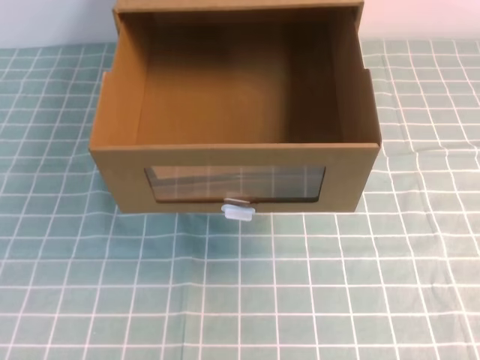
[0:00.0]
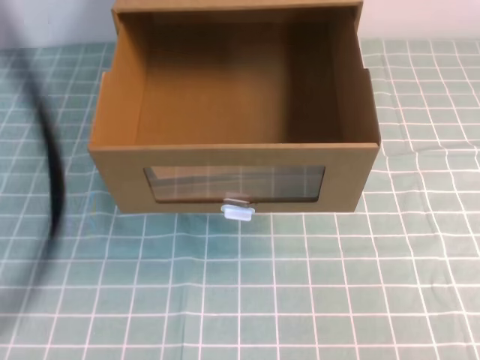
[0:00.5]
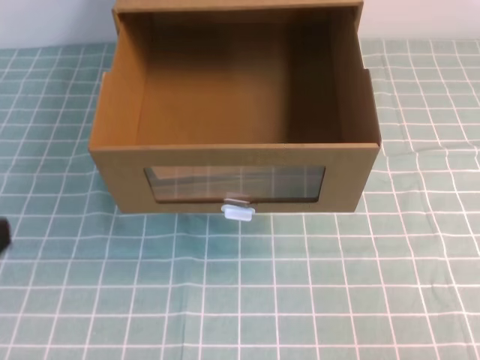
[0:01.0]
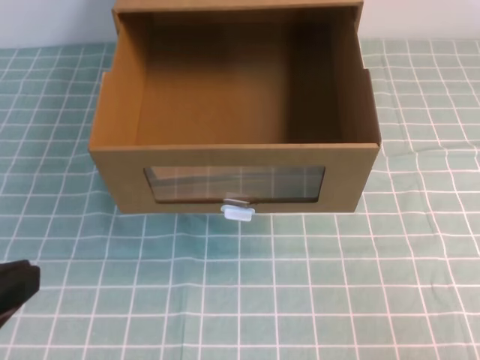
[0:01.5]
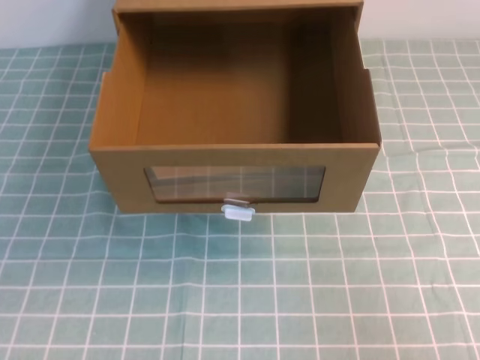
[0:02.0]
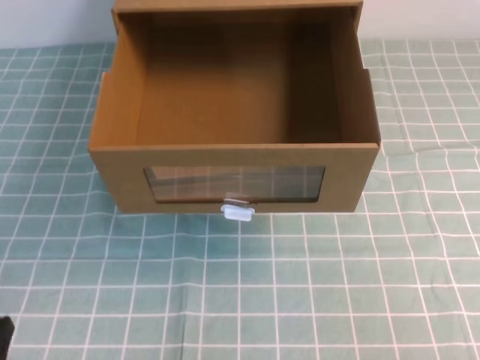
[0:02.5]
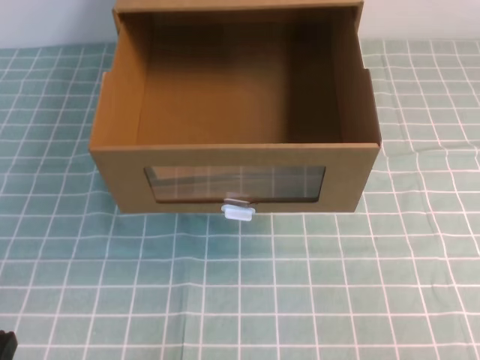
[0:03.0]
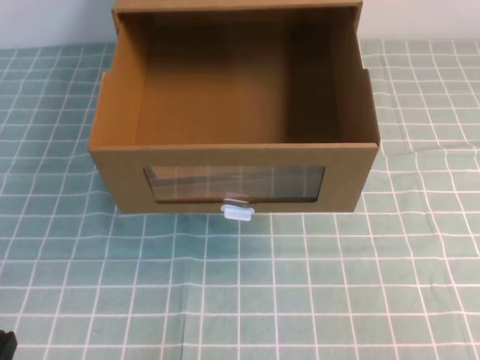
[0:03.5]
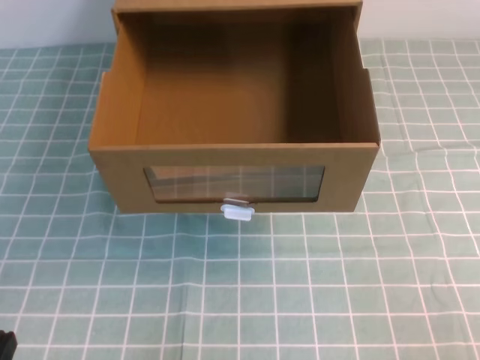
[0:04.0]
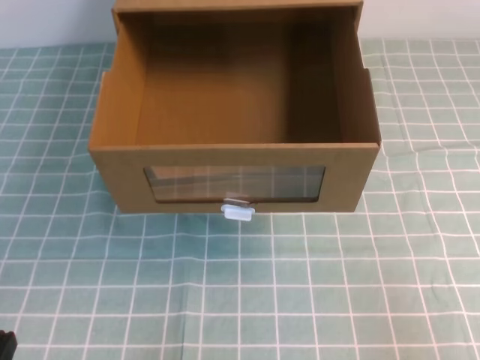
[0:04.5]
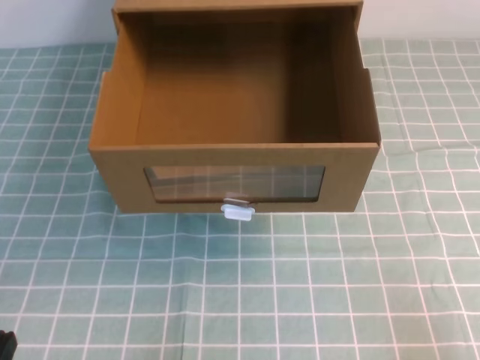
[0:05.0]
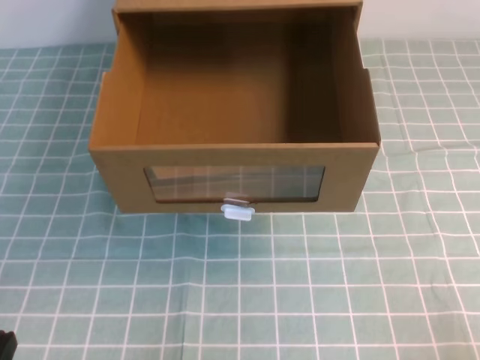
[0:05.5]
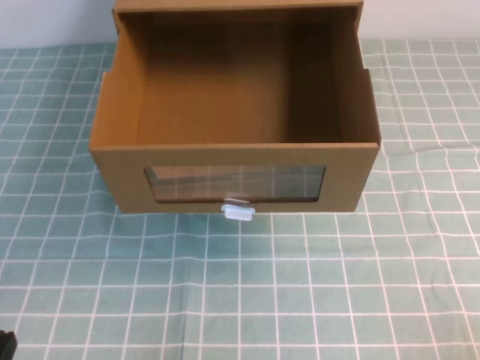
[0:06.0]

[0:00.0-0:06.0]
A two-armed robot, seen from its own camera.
Task of the whole recording: open the shoebox on the cyan tablecloth.
Step, 0:00.0 to 0:06.0: Open the shoe box.
0:00.0 to 0:02.0: The right gripper goes roughly 20 cm downward and to the right; the left gripper is displaced downward and backward by some 35 cm.

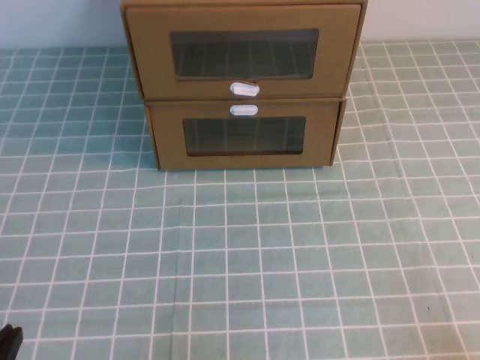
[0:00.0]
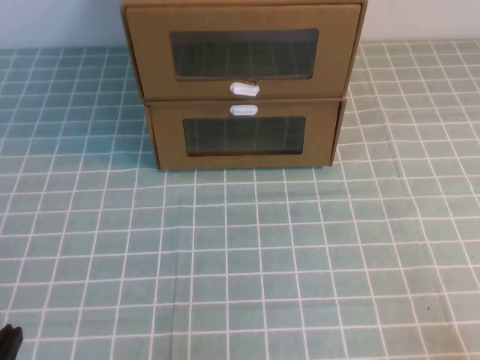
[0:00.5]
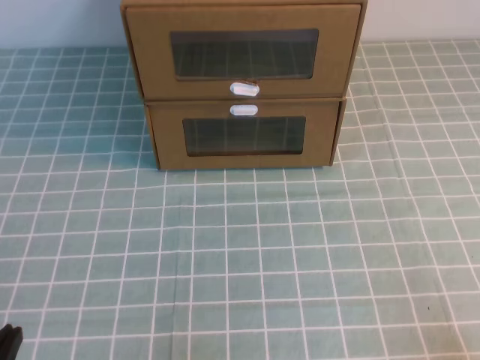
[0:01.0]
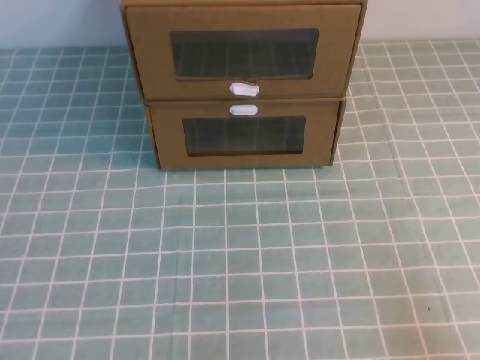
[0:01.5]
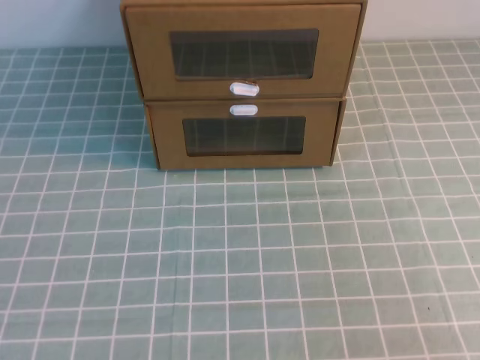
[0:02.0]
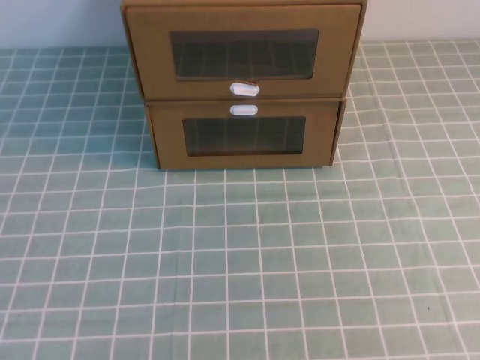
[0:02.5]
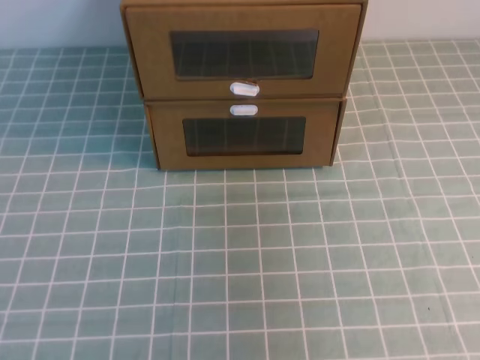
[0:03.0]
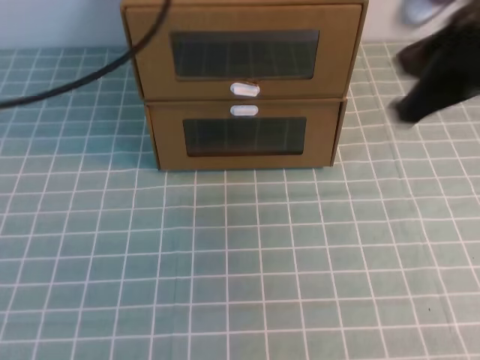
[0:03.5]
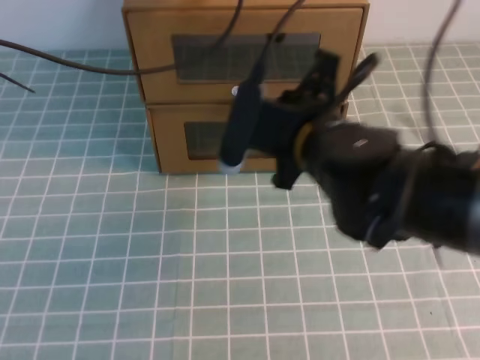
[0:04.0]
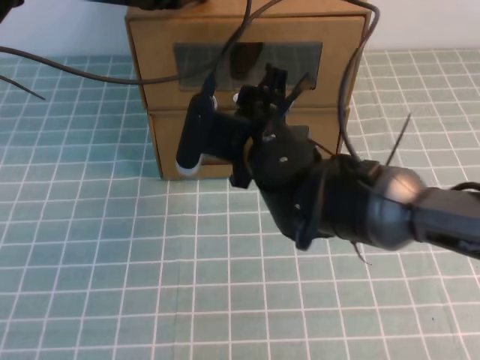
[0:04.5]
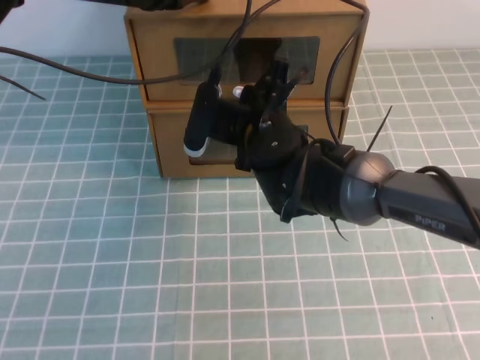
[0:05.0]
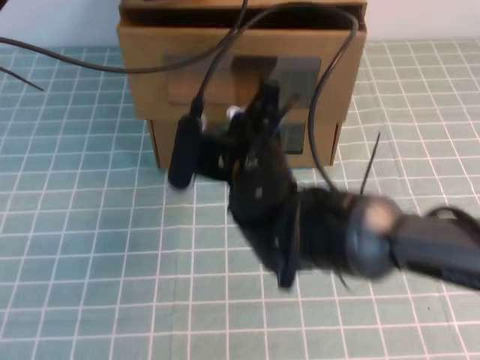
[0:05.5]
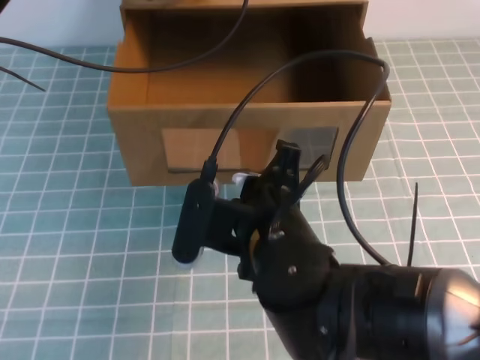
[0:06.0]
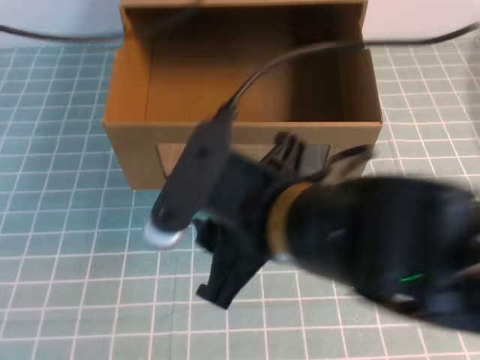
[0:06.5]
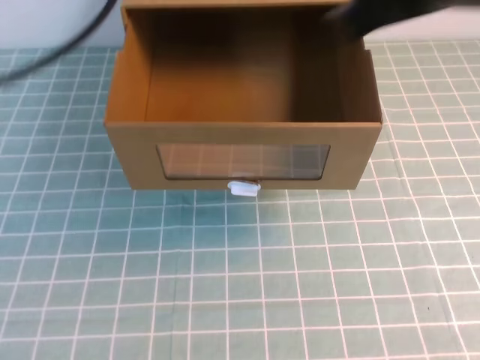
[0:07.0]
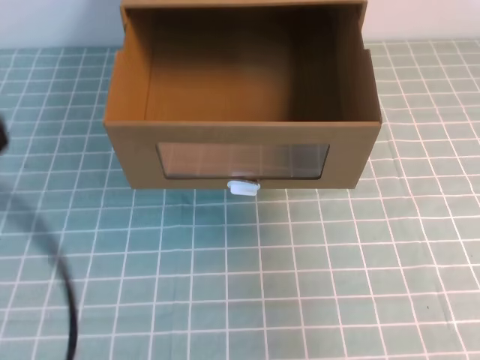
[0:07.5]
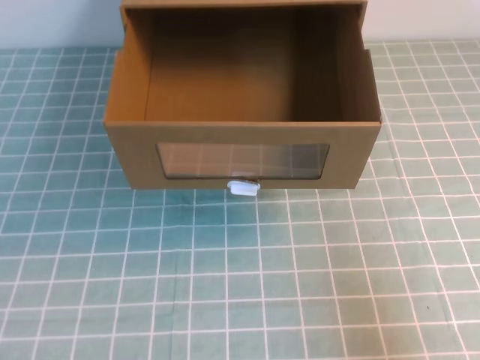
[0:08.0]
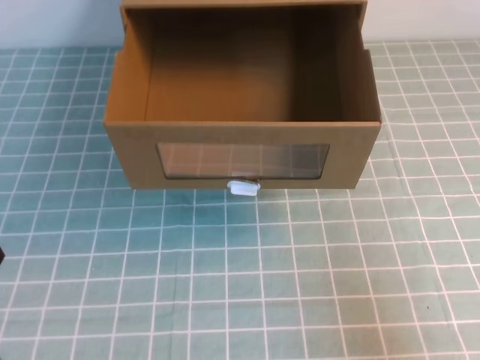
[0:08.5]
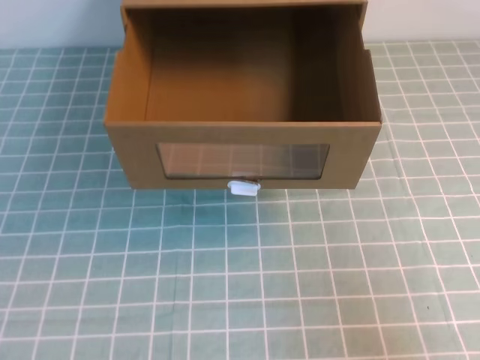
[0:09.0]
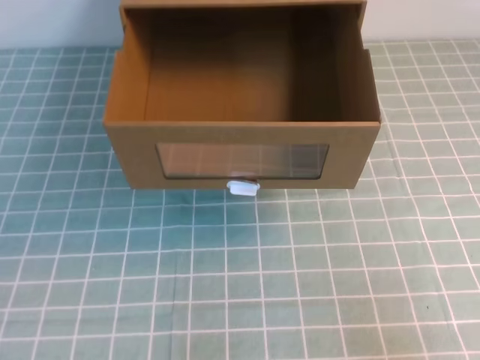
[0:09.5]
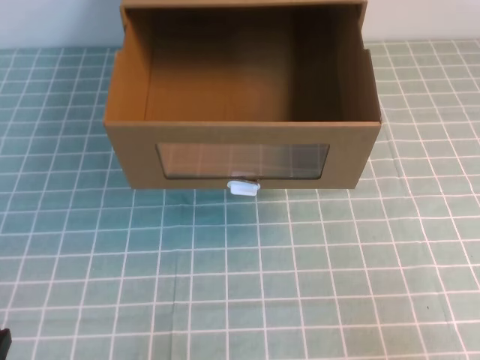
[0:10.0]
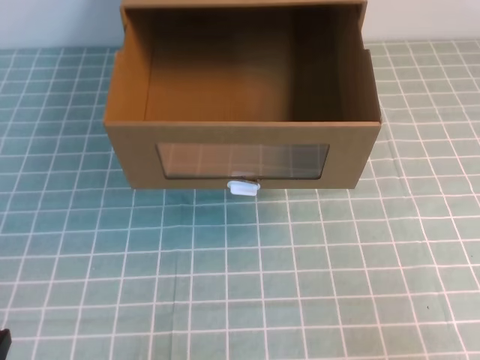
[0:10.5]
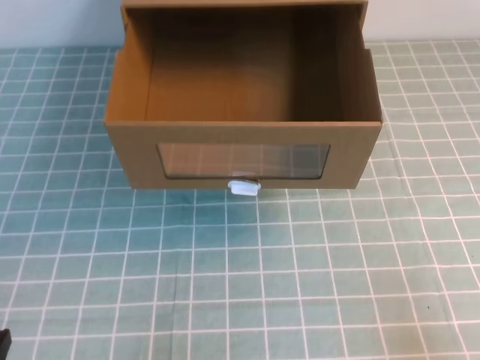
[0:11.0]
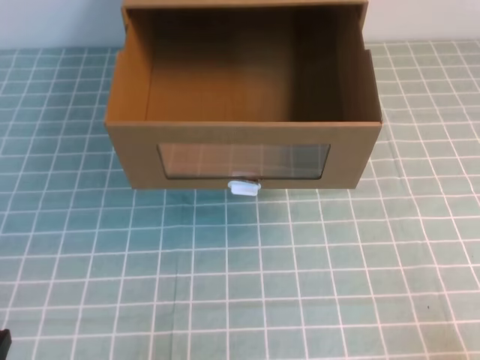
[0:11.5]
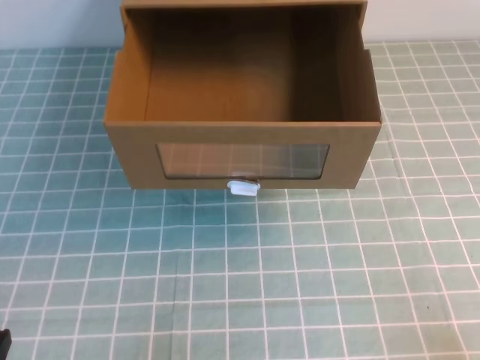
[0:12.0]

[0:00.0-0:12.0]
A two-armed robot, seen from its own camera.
Task of the whole recording: open the shoebox on the cyan tablecloth.
Step, 0:00.0 to 0:12.0: Open the shoe box.
0:02.0 to 0:04.0: The right gripper goes about 35 cm forward and to the left; the left gripper is displaced forward and to the right by roughly 40 cm.
0:04.0 to 0:06.0: The right gripper is displaced backward and to the left by approximately 10 cm, and opens.
0:06.0 to 0:08.0: The right gripper travels to the right by roughly 25 cm, and closes up. Meanwhile the left gripper heads backward, covering approximately 40 cm.

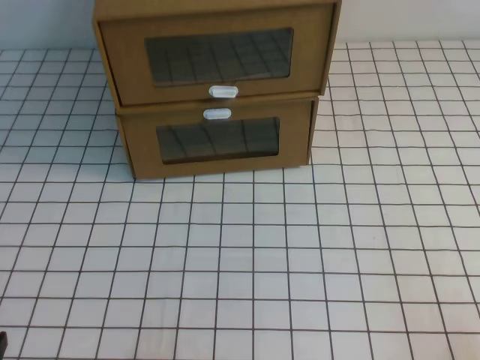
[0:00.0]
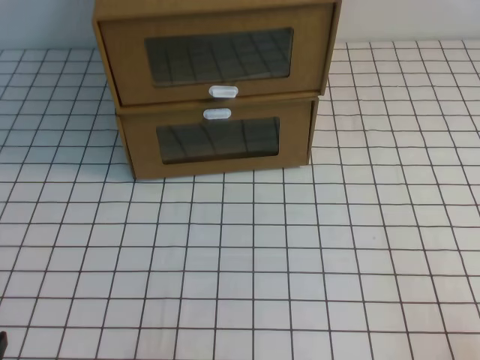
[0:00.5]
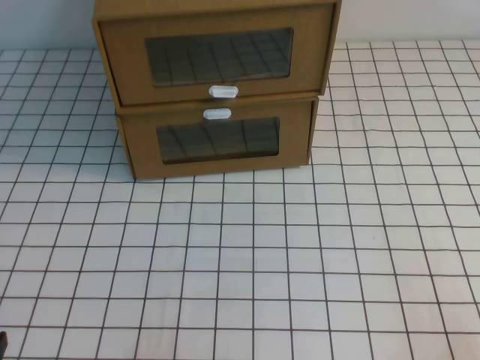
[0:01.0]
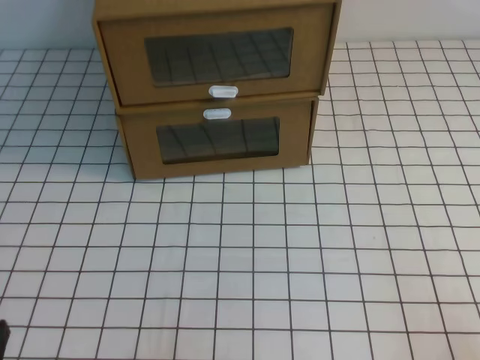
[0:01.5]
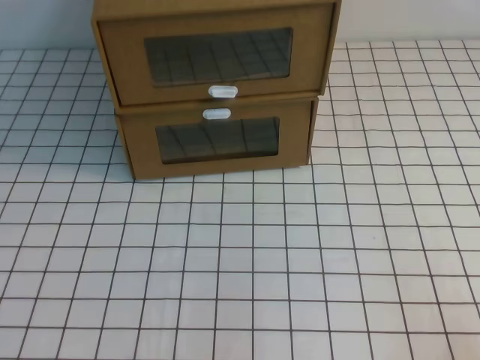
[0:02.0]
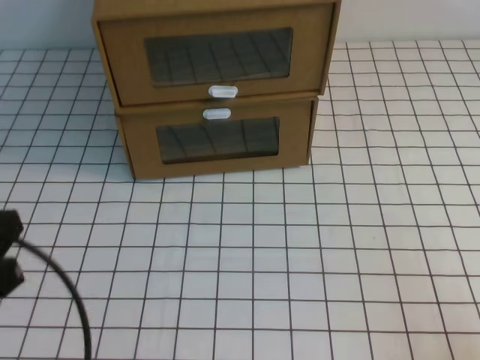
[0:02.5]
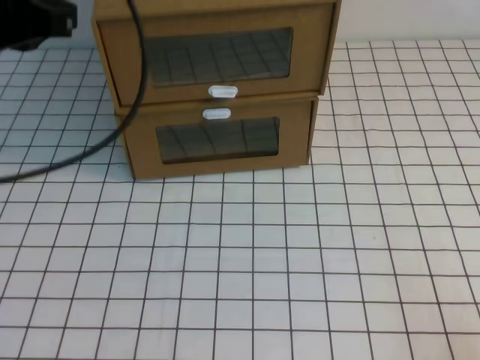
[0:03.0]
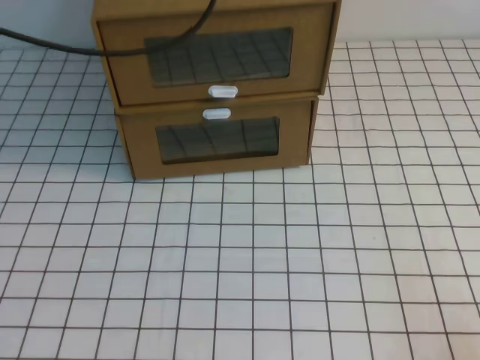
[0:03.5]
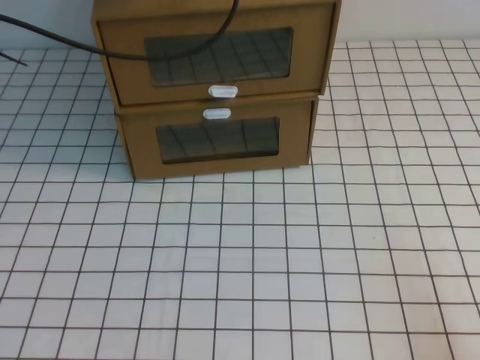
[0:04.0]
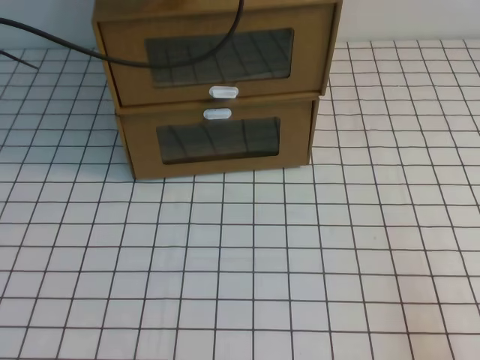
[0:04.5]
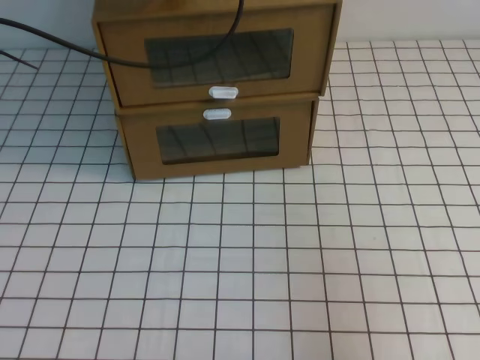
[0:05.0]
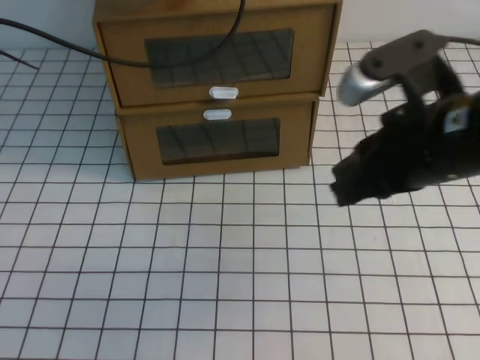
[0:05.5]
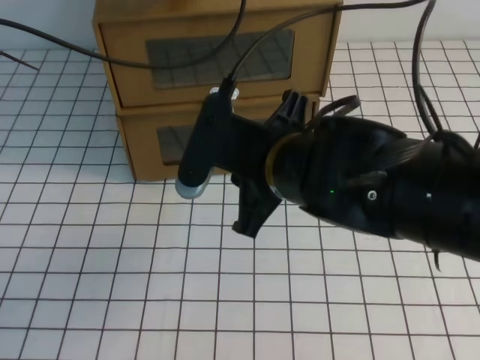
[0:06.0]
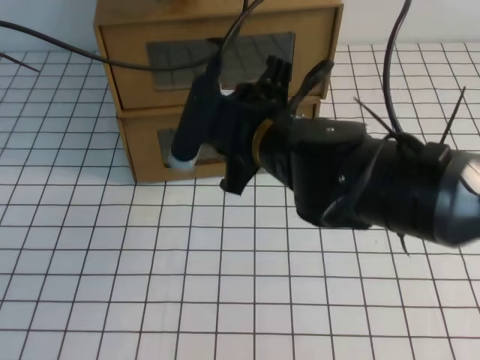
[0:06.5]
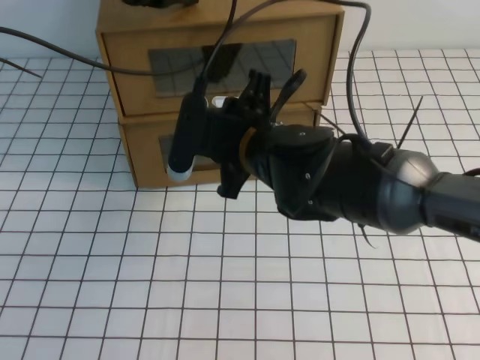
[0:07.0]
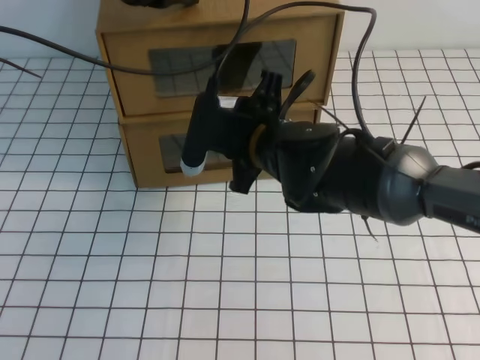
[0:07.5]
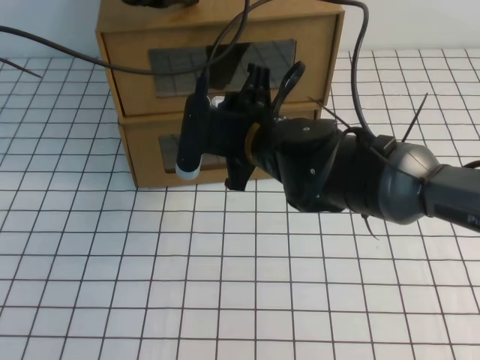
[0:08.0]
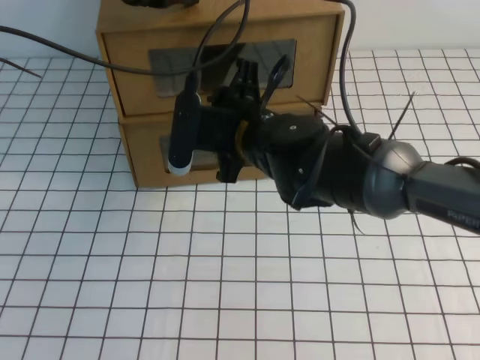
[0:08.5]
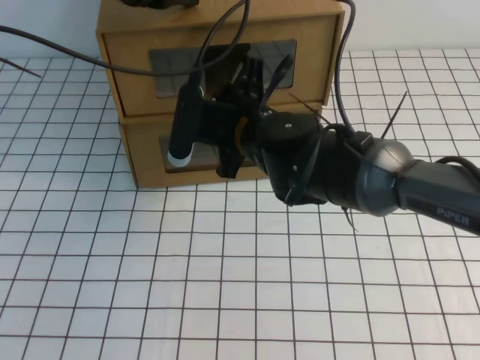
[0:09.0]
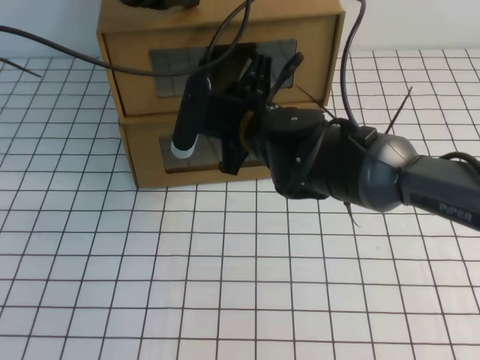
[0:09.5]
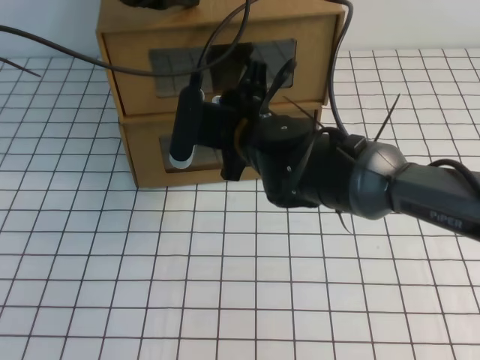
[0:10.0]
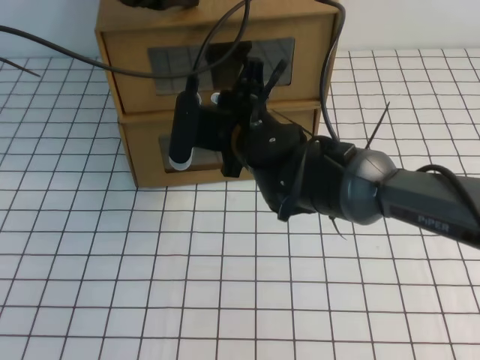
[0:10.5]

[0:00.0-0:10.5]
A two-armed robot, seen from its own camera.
Task of the whole recording: open the shoebox on the white tablecloth.
0:02.0 to 0:04.0: The left gripper goes about 40 cm forward and upward.
0:04.0 to 0:06.5: The right gripper heads to the left, forward and upward, covering roughly 40 cm, and opens.
0:06.5 to 0:08.5: The right gripper travels forward by some 5 cm.
0:08.5 to 0:10.5: The right gripper closes up.
